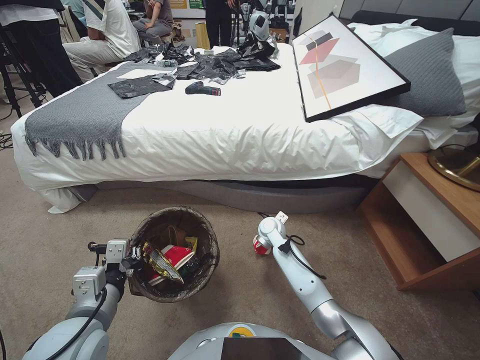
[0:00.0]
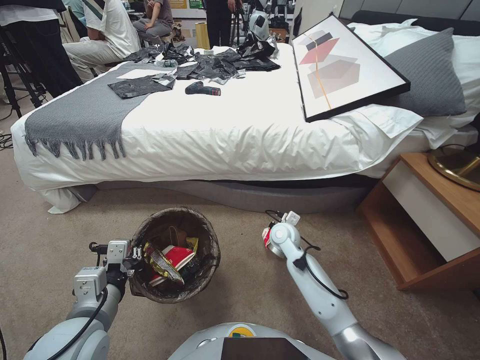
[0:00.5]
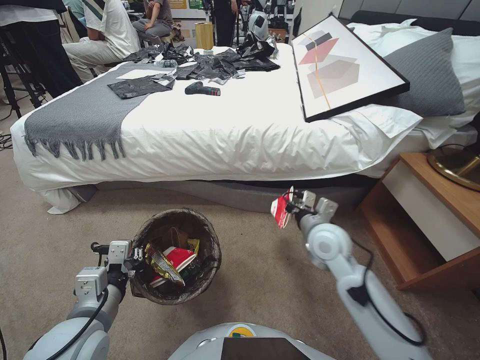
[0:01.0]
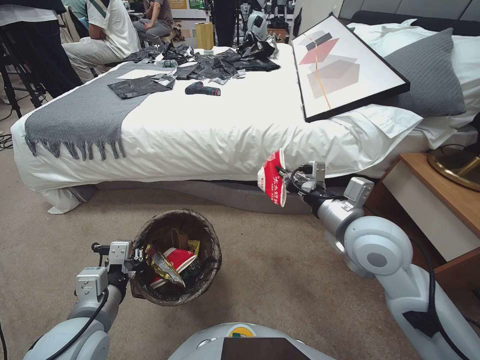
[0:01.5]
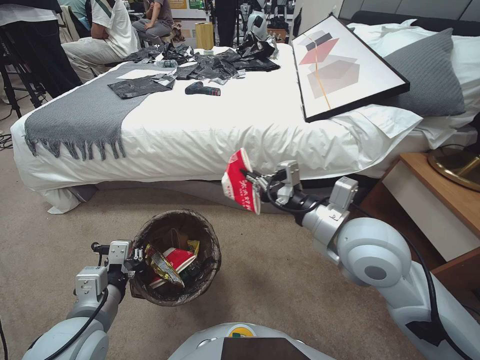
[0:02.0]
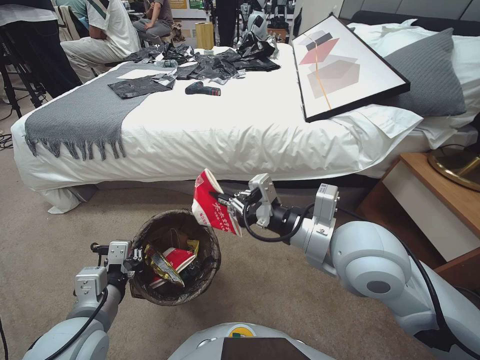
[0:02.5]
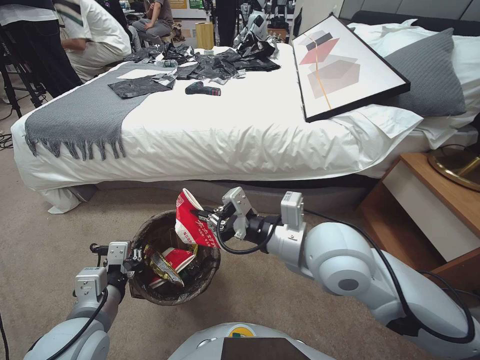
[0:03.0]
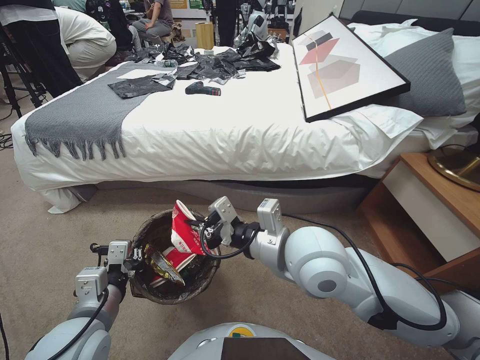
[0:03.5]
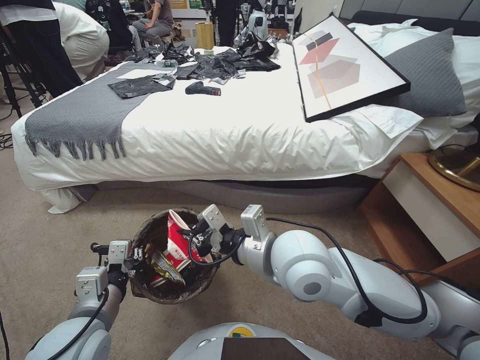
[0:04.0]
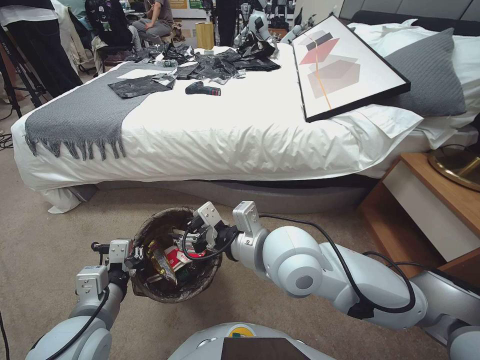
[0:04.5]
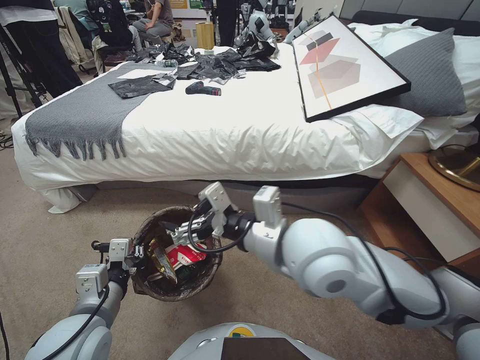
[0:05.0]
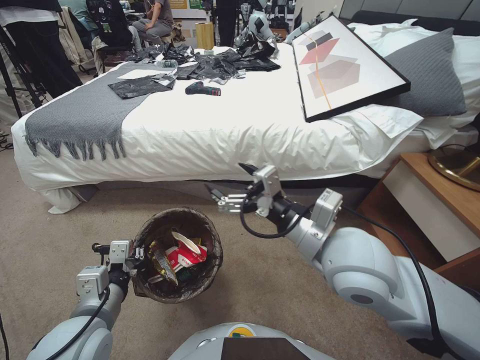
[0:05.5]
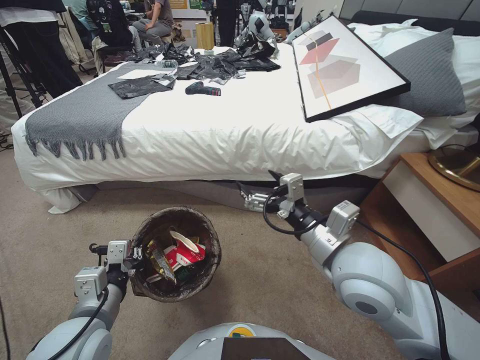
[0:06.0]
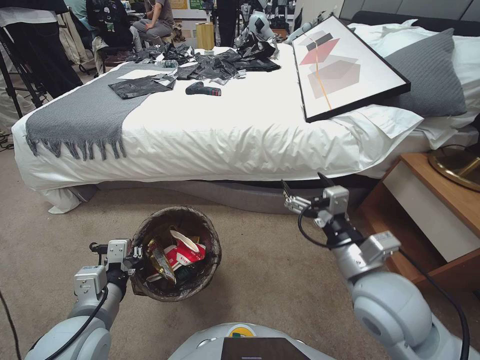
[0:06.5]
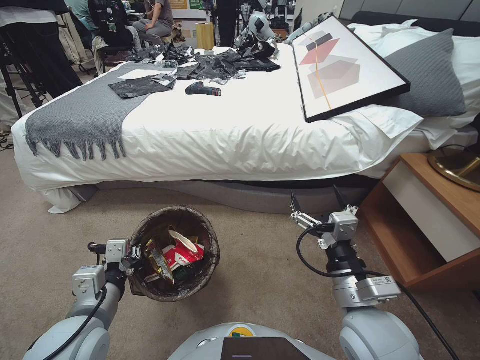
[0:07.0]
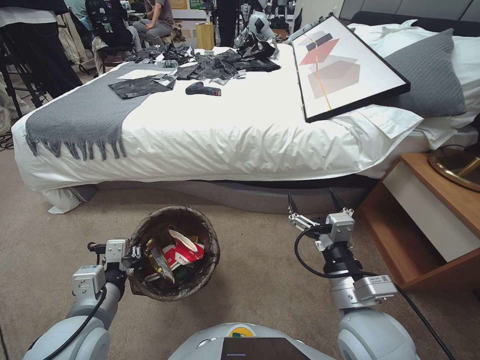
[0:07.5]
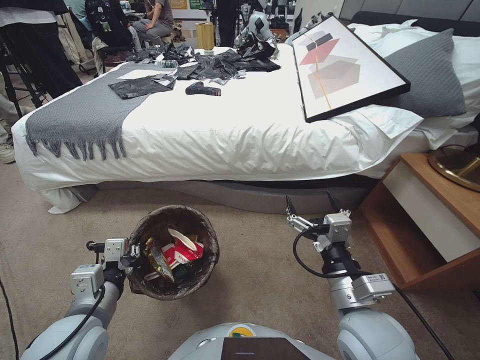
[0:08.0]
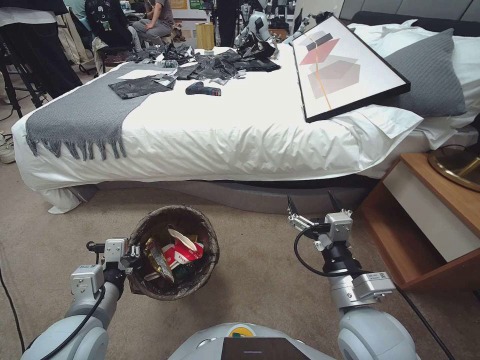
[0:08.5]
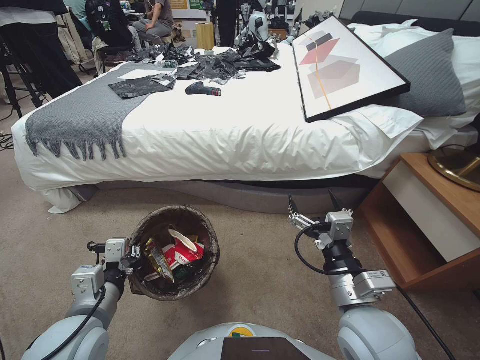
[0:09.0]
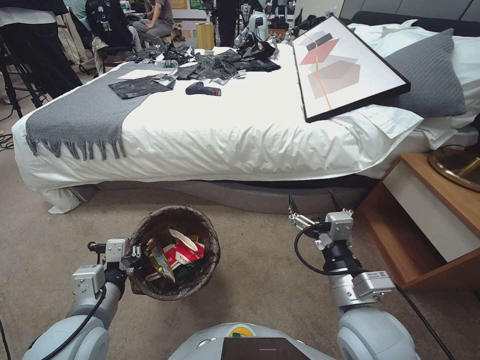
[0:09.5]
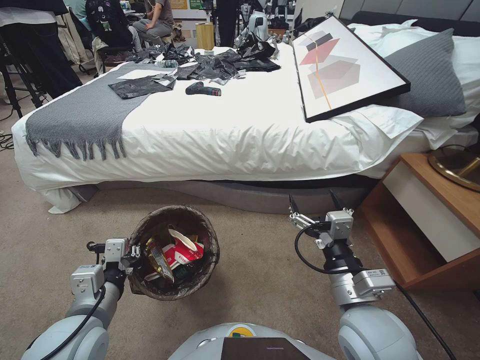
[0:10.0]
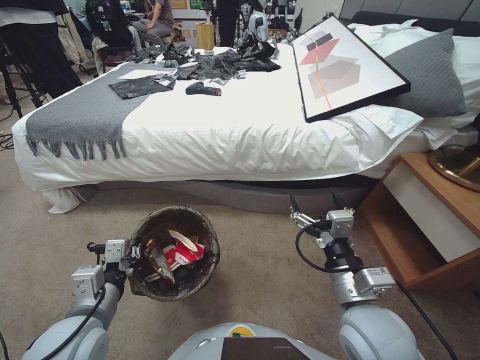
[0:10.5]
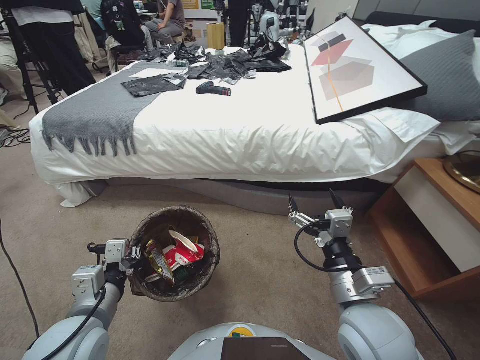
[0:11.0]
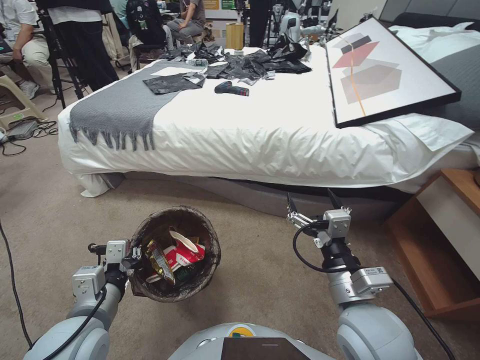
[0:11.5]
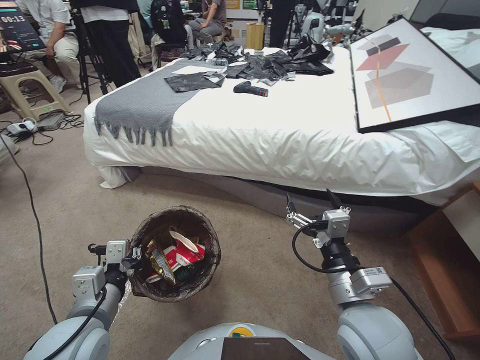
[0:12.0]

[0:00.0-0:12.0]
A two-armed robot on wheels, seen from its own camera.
Task of the whole recording: Pick up the trash bin, then pick up the garbage from the floor and place it into the trash bin.
0:00.0 to 0:02.0: The right gripper heads upward and backward, covering about 35 cm.
0:02.0 to 0:04.0: The right gripper shifts some 10 cm to the left.
0:04.0 to 0:06.0: The right gripper heads to the right, covering approximately 10 cm, and opens its fingers.
0:06.0 to 0:08.0: The right gripper is displaced downward and backward by roughly 10 cm.
0:08.0 to 0:10.0: Neither gripper changes place.

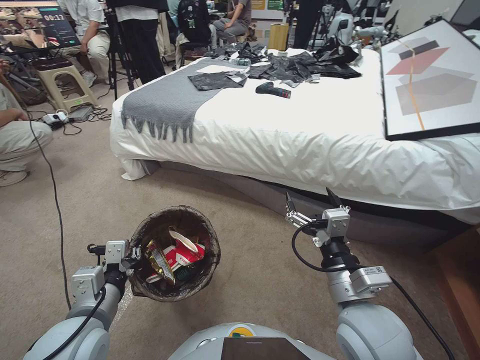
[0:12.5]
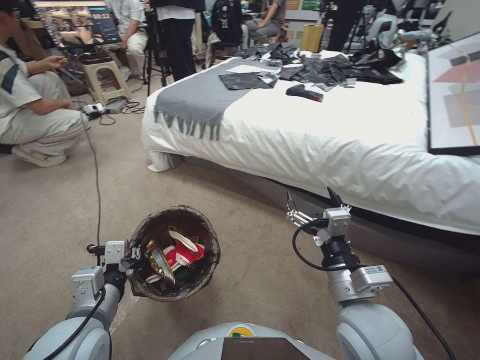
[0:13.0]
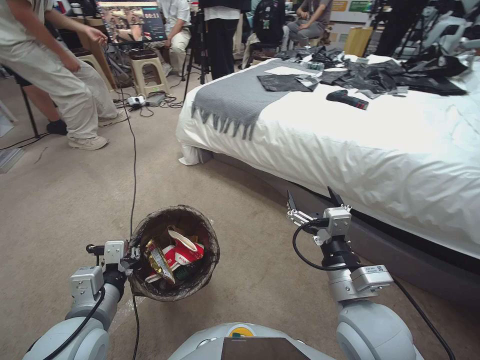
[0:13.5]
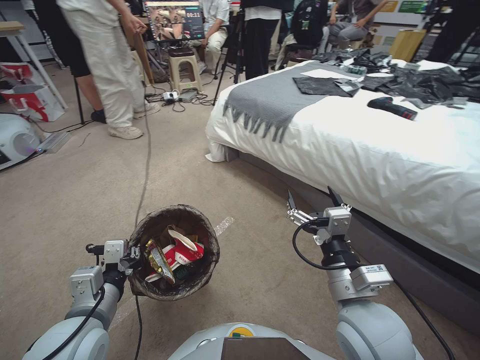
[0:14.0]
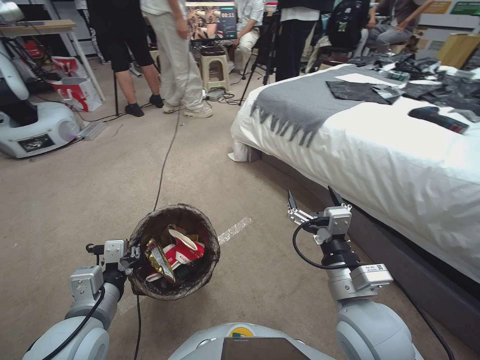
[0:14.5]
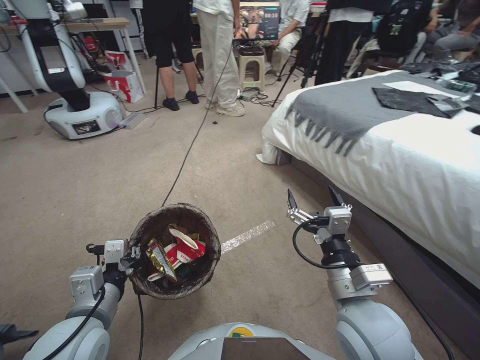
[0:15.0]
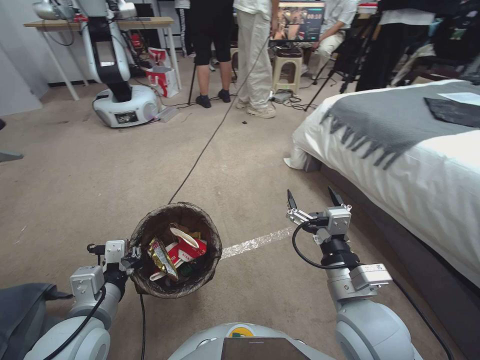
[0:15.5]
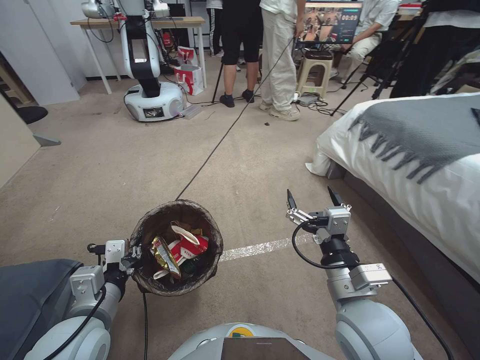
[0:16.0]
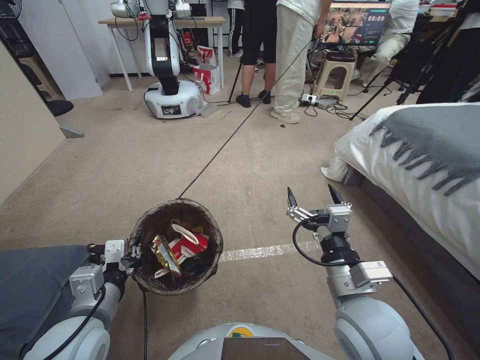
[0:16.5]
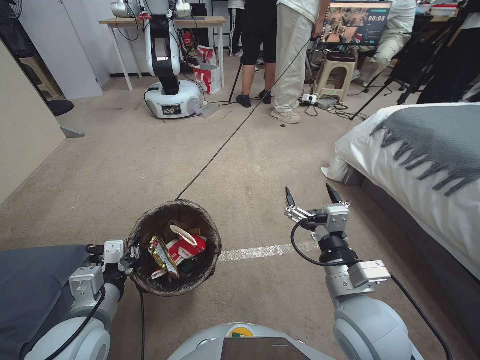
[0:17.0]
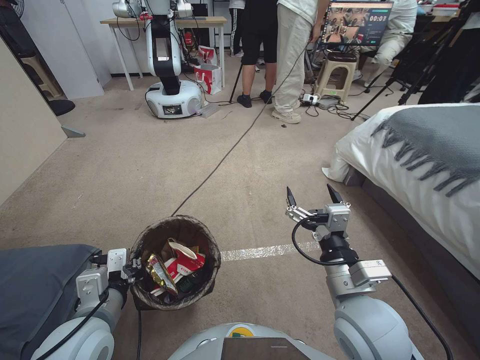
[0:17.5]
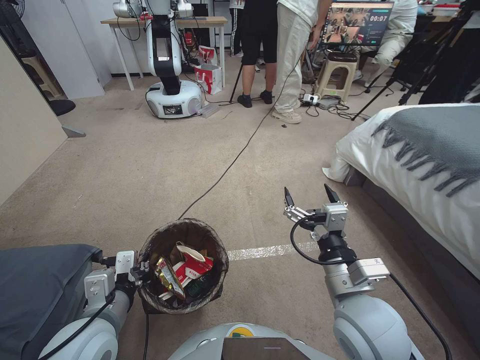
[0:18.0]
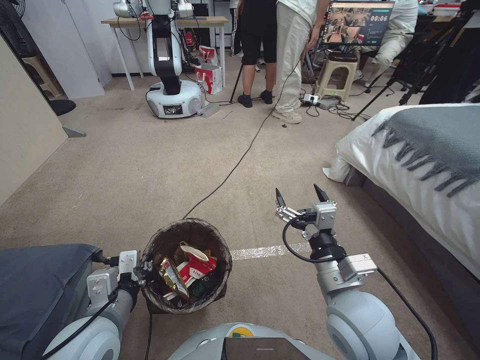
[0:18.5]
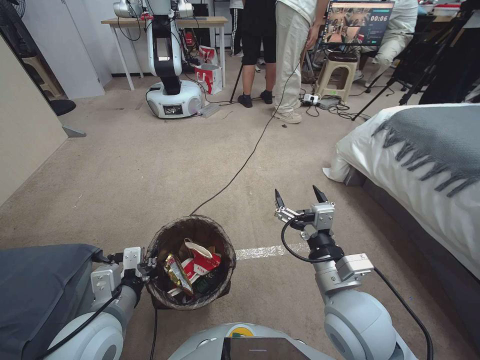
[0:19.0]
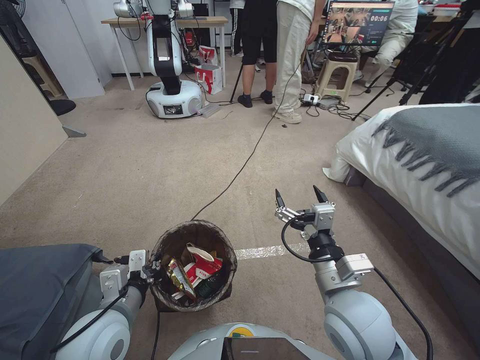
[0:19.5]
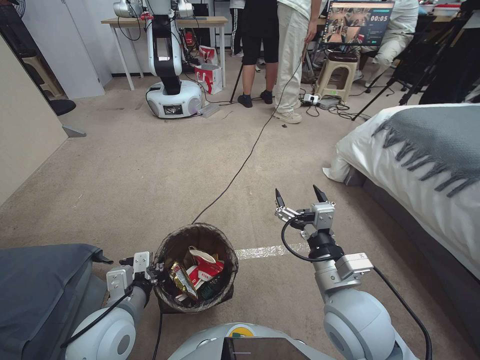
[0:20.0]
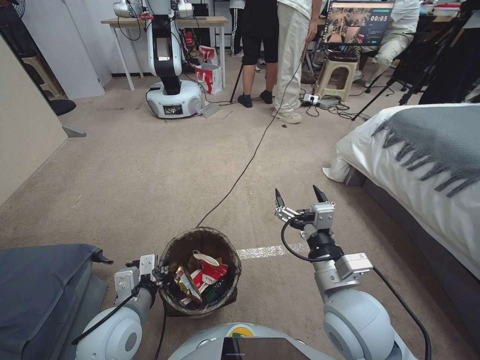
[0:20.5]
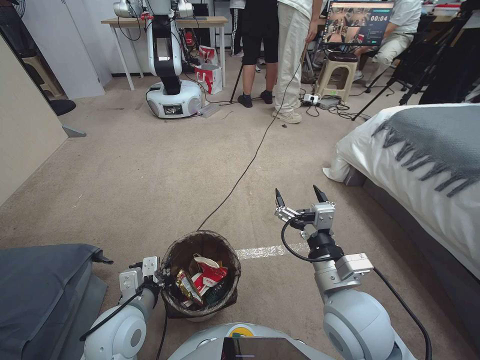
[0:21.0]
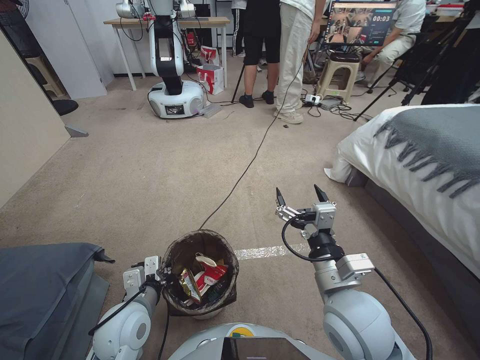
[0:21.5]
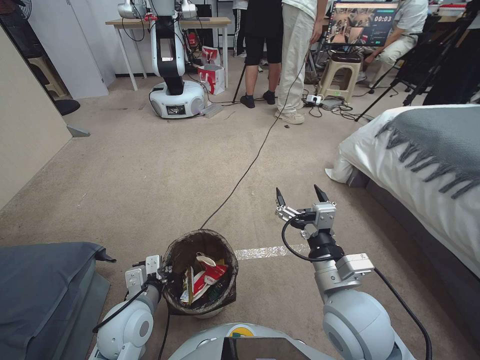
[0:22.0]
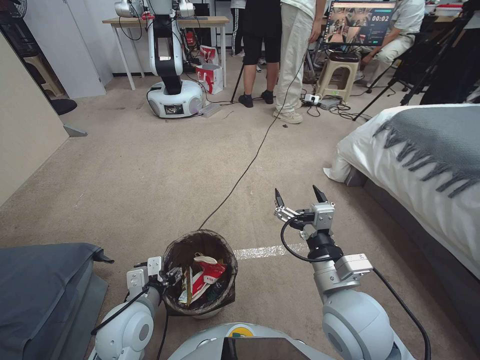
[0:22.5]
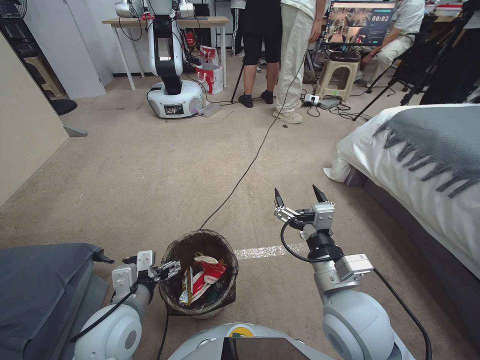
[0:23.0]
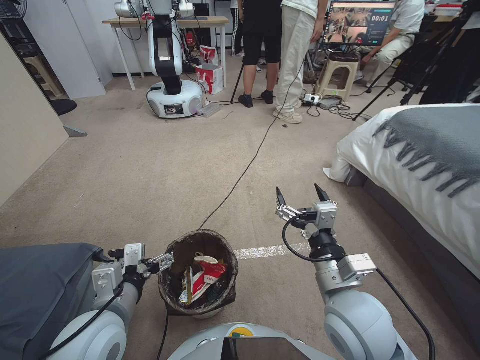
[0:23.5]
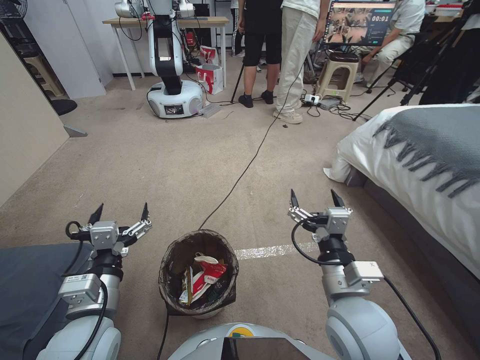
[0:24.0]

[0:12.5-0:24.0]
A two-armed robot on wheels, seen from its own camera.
Task of the whole recording: Pick up the trash bin, then pick up the garbage from the floor and place it into the trash bin.
0:18.5 to 0:20.0: The grippers stay close to where they were, moving slightly.
0:20.0 to 0:22.0: The left gripper travels downward by roughly 5 cm.
0:22.0 to 0:24.0: The left gripper shifts roughly 10 cm upward, and opens.

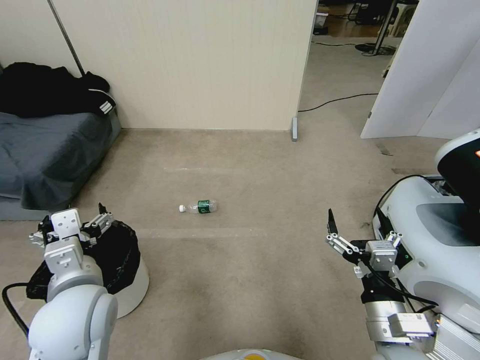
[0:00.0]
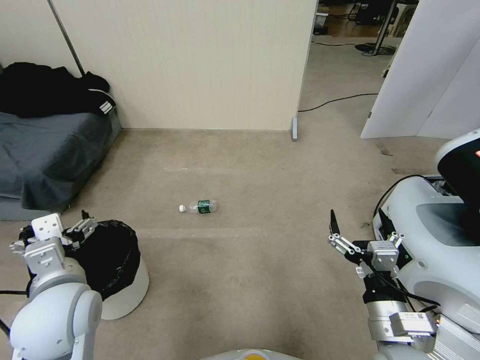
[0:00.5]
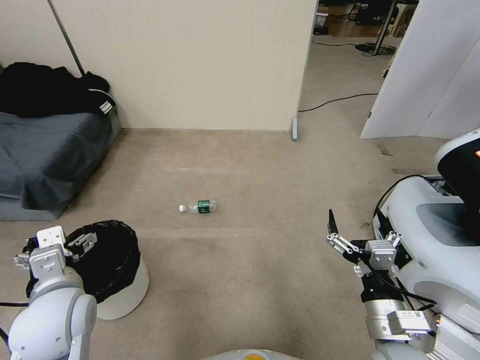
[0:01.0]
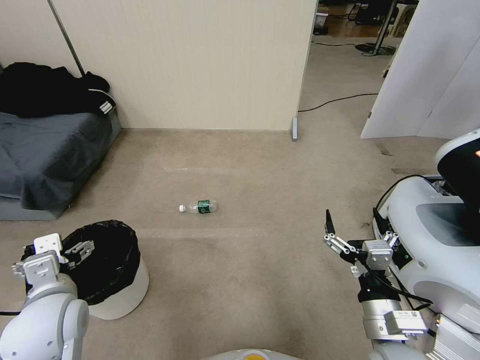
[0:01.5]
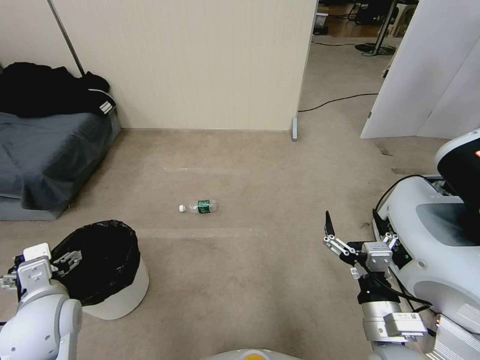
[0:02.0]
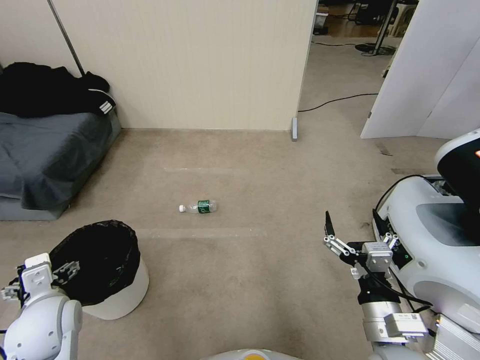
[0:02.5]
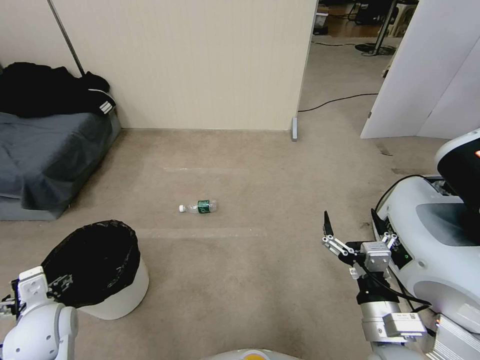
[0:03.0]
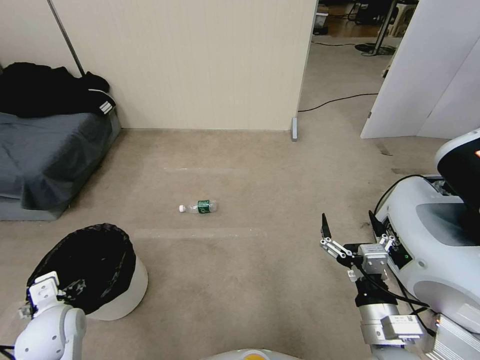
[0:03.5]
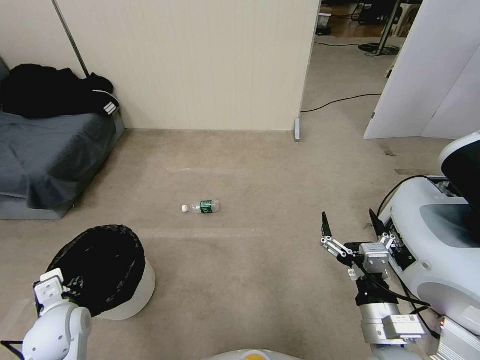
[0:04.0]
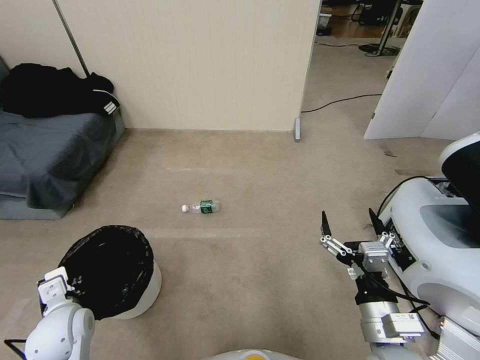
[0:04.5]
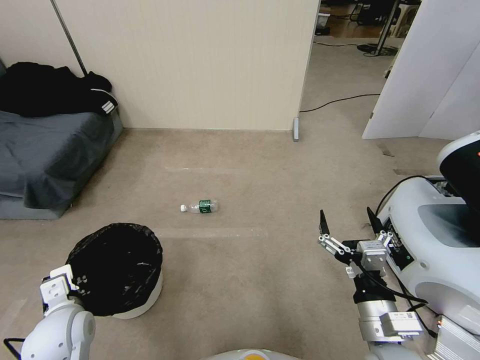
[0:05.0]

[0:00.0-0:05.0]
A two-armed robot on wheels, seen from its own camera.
Task of the whole recording: Pick up the trash bin, then pick up the garbage from the floor and place it into the trash bin.
0:00.0 to 0:02.5: The left gripper is displaced to the left and downward by approximately 15 cm.
0:02.5 to 0:05.0: The left gripper closes up.
